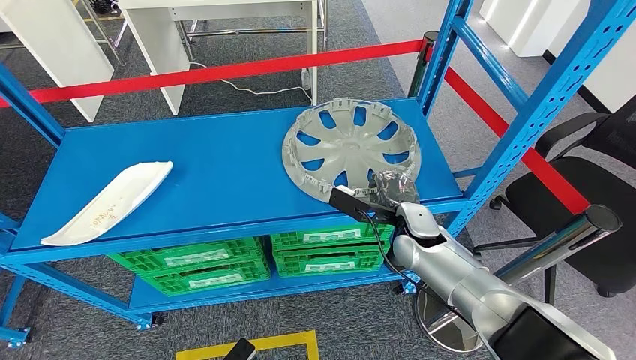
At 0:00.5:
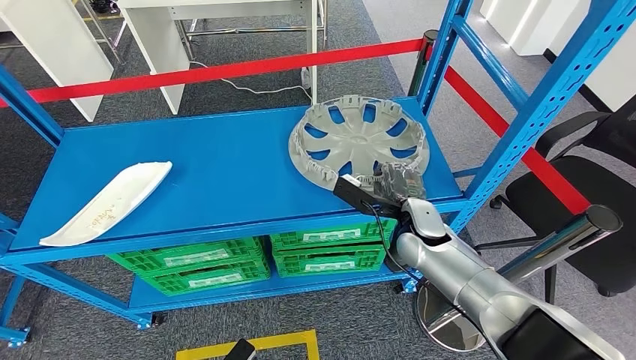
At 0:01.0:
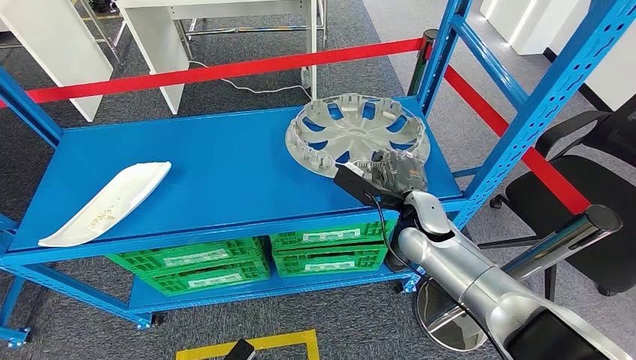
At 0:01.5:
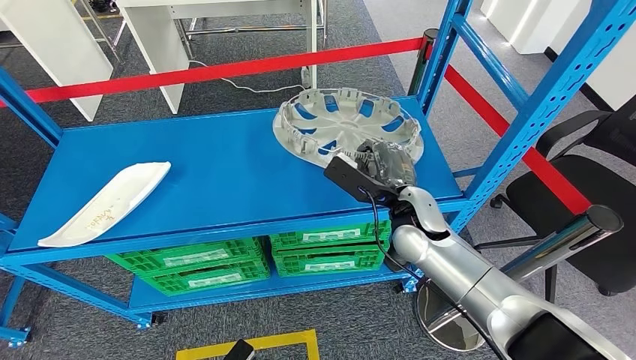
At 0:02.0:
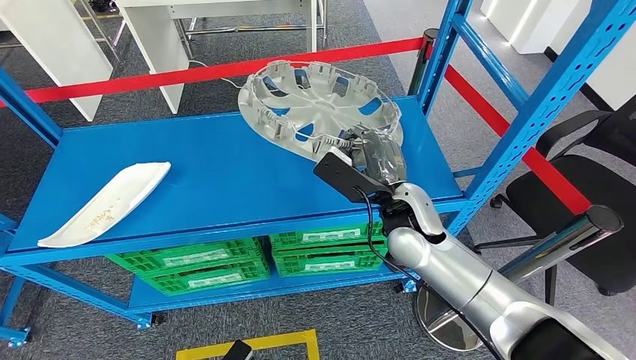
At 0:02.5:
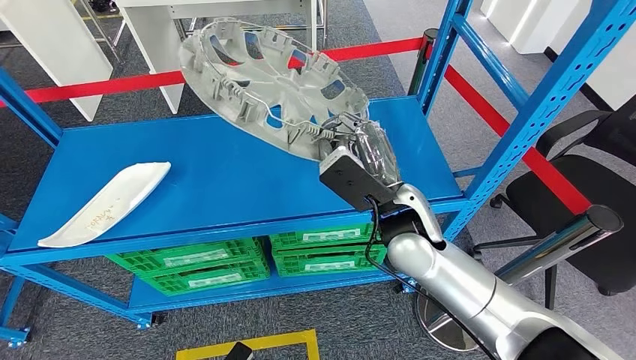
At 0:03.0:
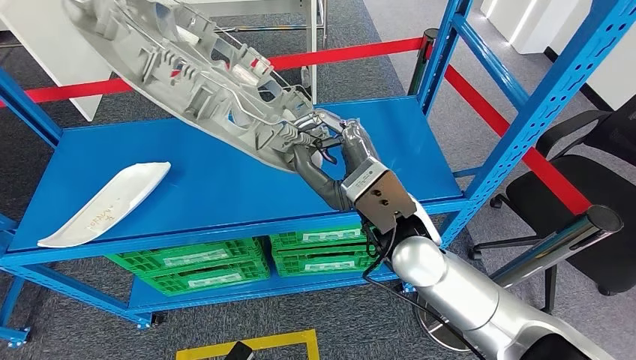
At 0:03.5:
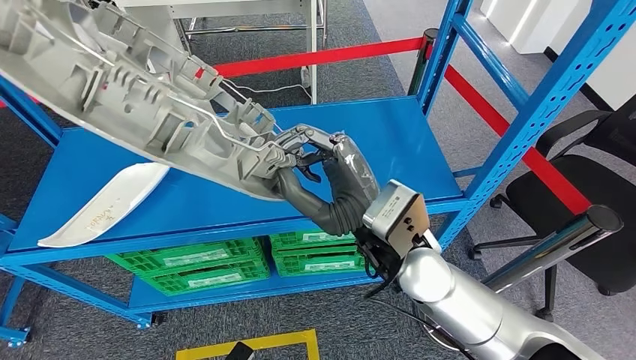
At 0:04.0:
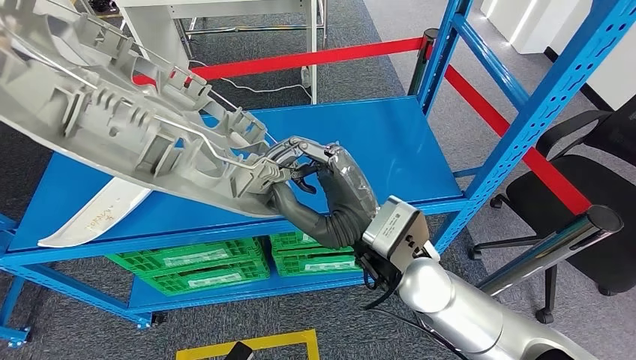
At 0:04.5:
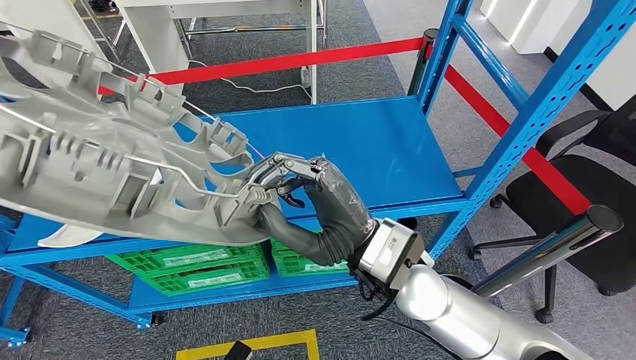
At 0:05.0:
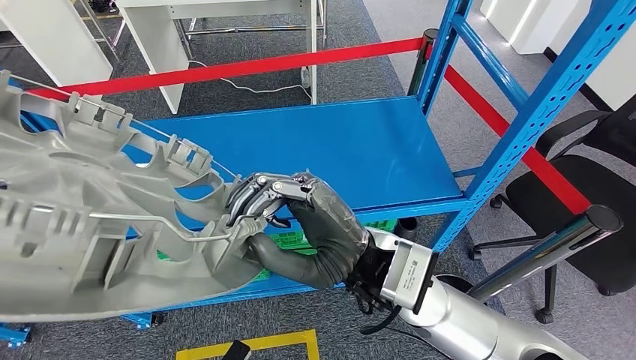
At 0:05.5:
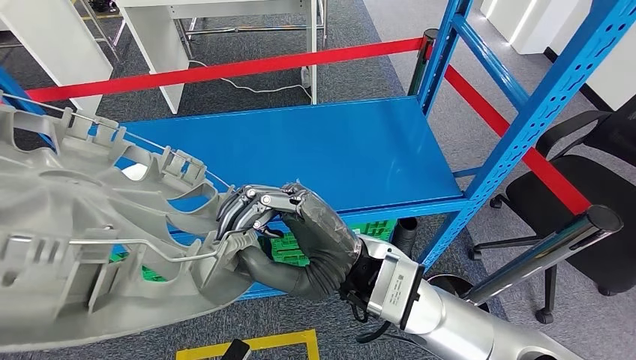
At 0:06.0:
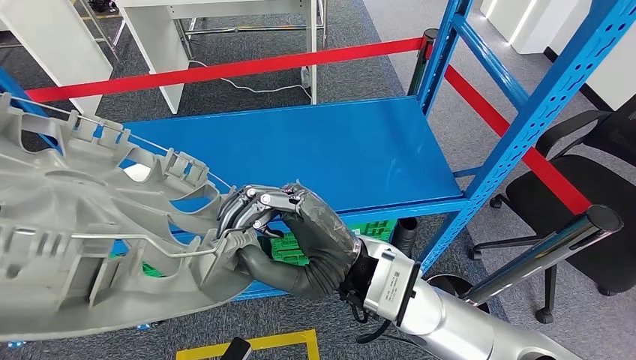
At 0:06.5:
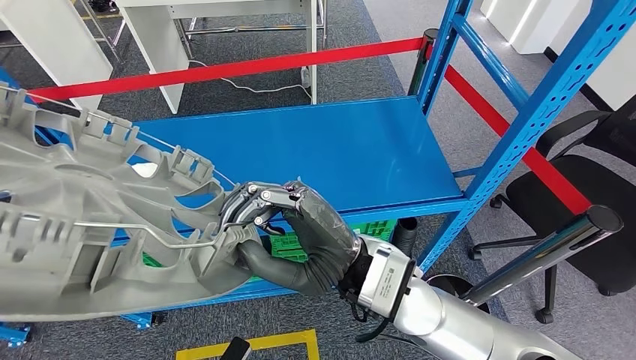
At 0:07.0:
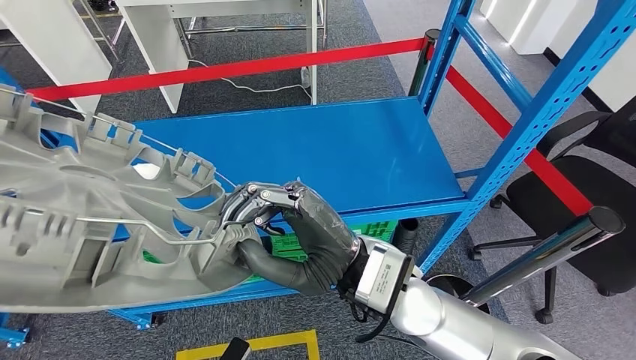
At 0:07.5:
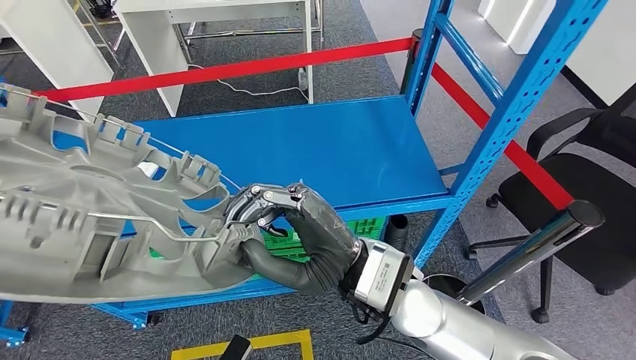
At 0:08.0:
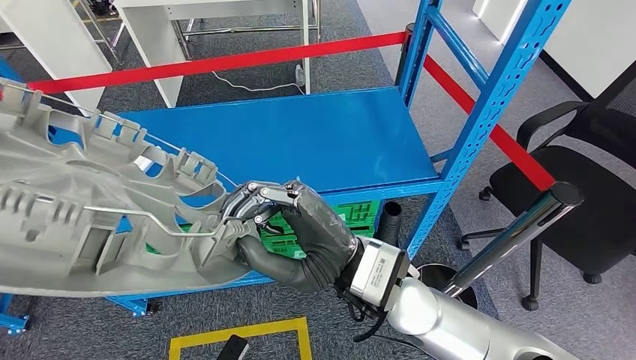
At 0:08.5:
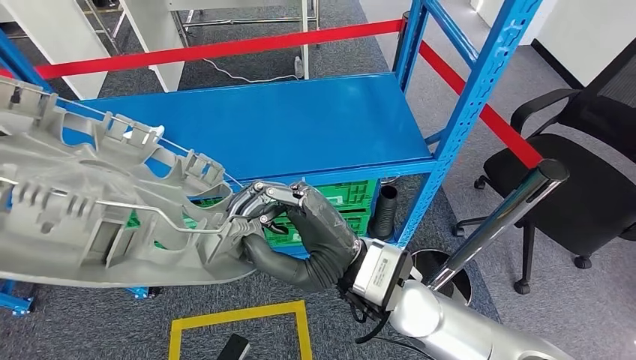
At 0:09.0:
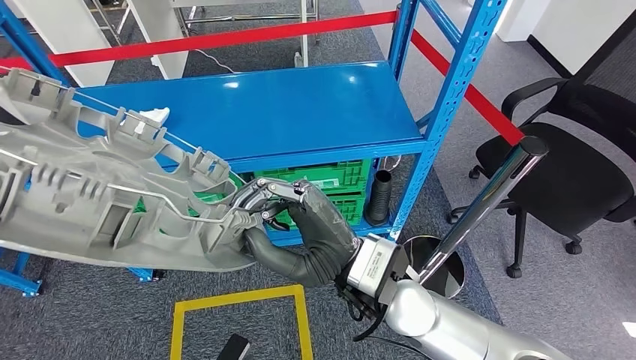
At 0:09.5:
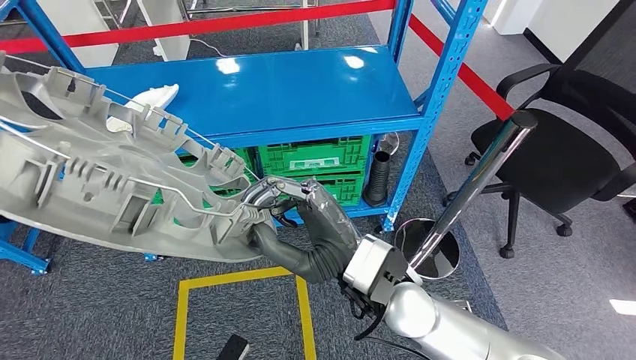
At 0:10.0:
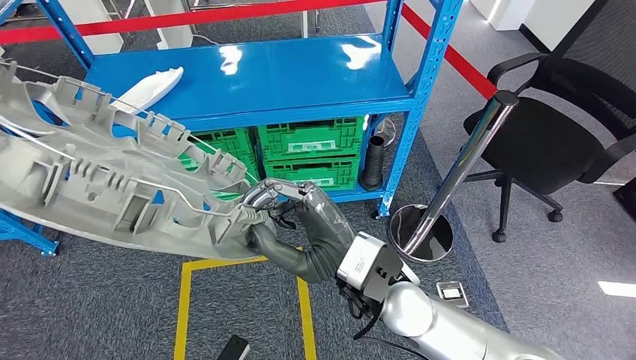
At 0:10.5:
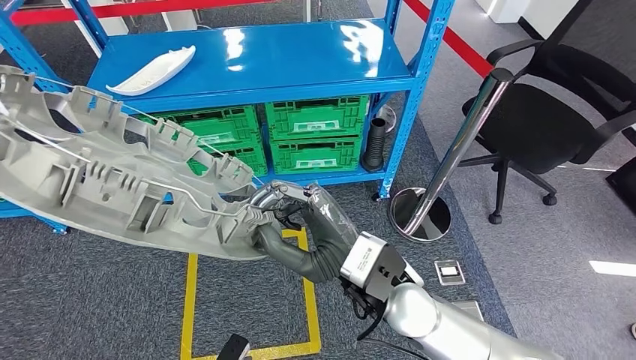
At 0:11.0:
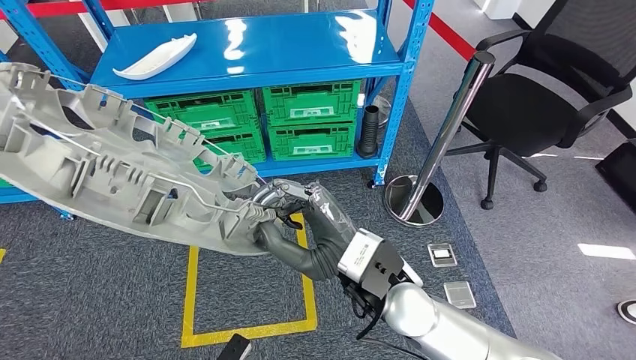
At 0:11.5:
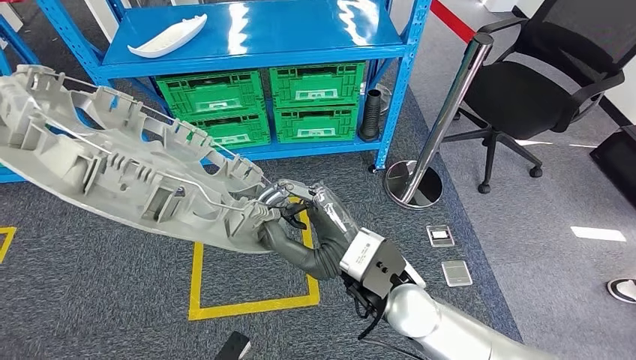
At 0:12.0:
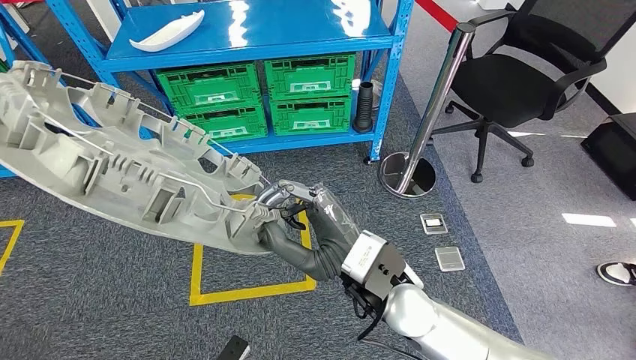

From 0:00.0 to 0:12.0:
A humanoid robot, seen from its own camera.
Step, from 0:00.0 to 0:04.0: Pick up the large material from the shelf.
From 0:00.0 to 0:02.0: The right hand travels upward by approximately 10 cm.

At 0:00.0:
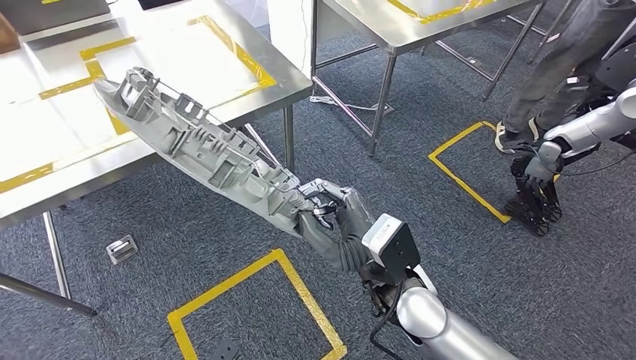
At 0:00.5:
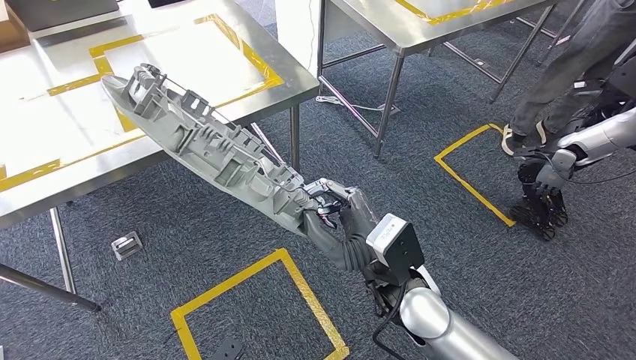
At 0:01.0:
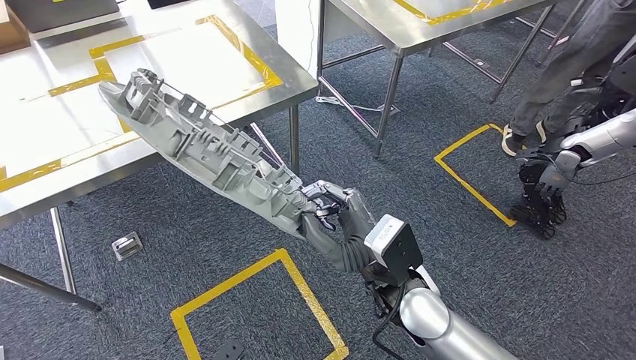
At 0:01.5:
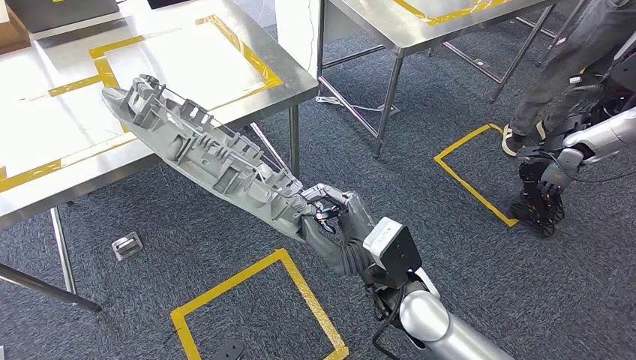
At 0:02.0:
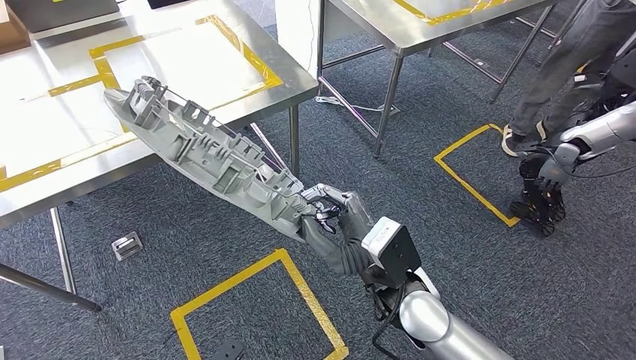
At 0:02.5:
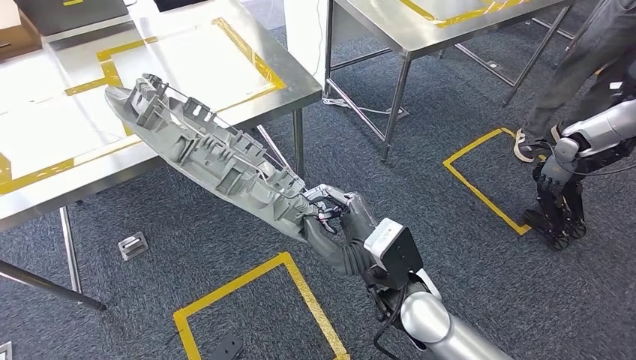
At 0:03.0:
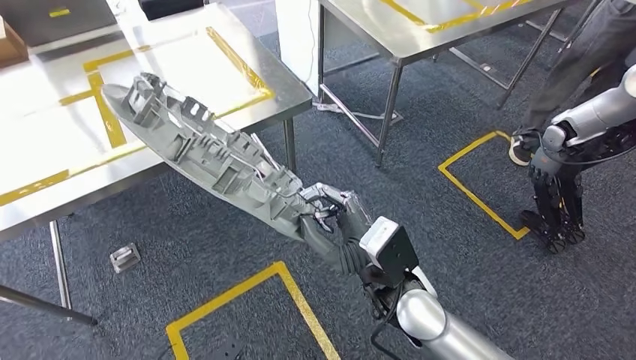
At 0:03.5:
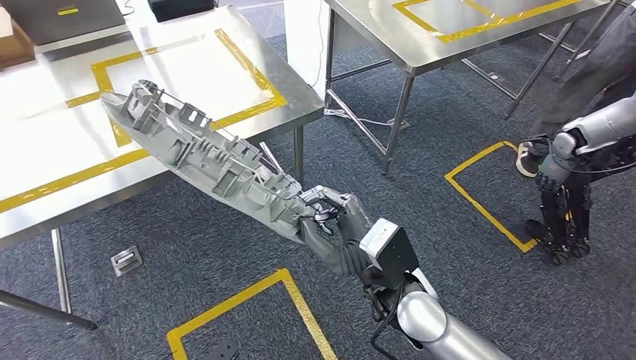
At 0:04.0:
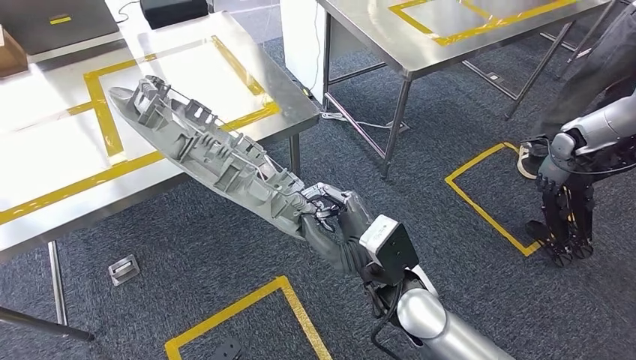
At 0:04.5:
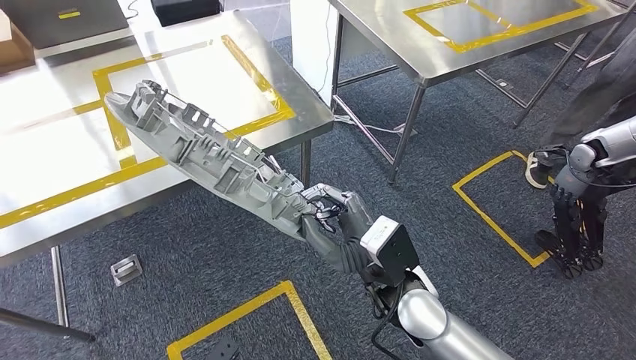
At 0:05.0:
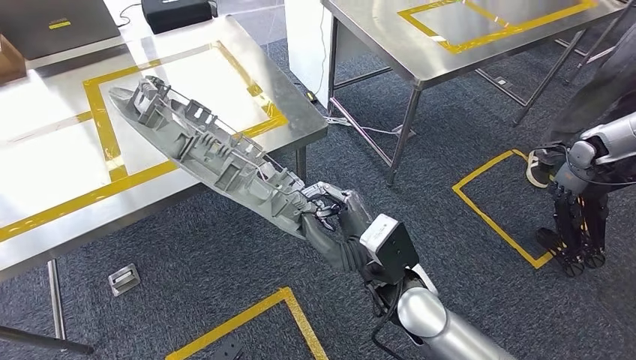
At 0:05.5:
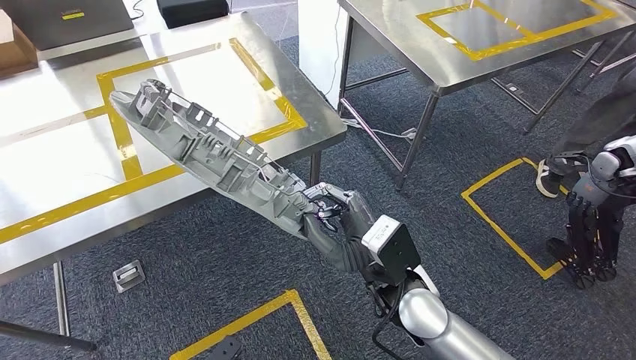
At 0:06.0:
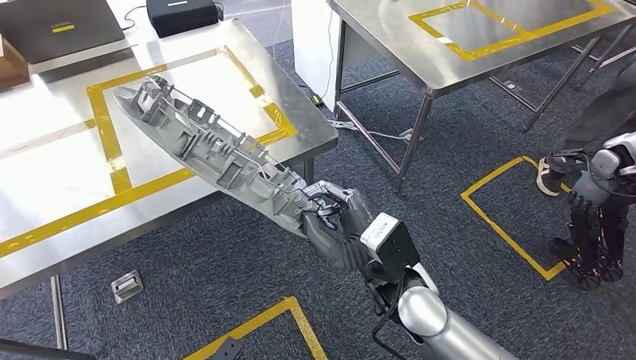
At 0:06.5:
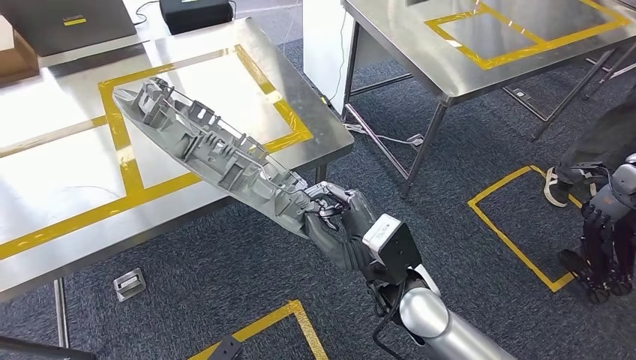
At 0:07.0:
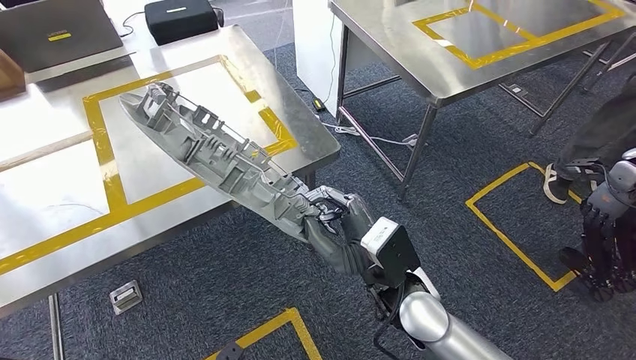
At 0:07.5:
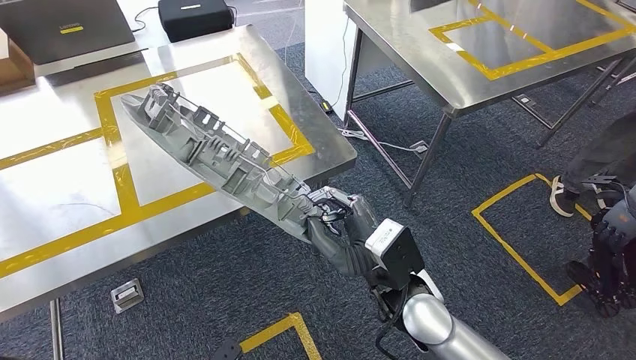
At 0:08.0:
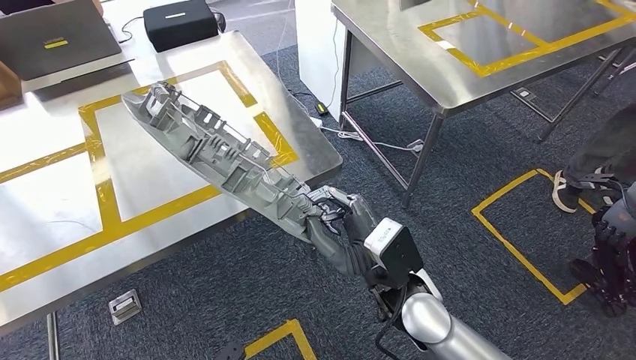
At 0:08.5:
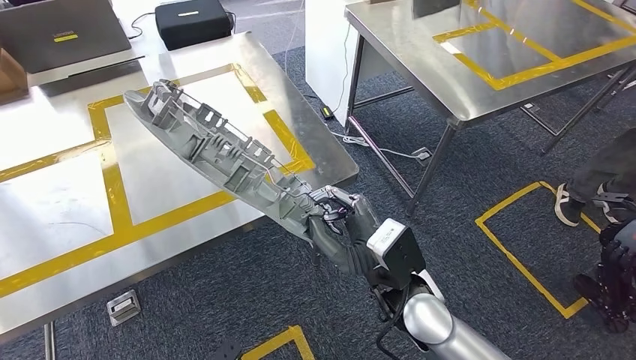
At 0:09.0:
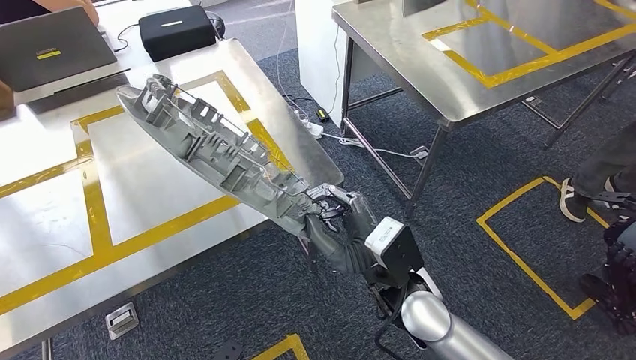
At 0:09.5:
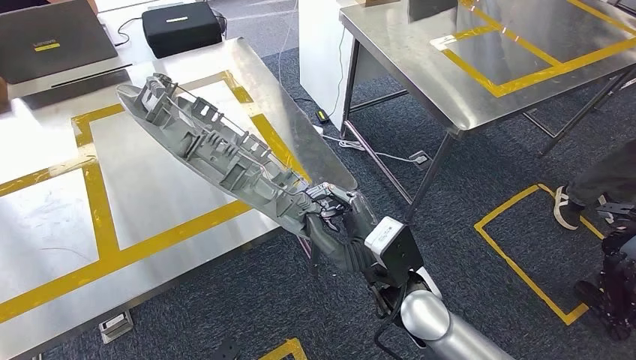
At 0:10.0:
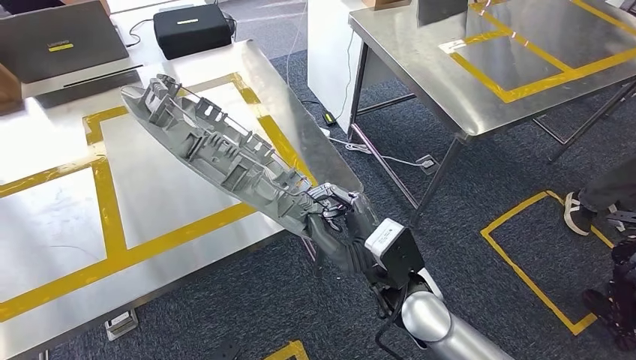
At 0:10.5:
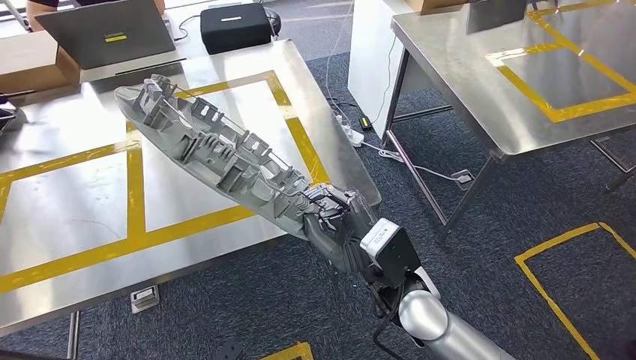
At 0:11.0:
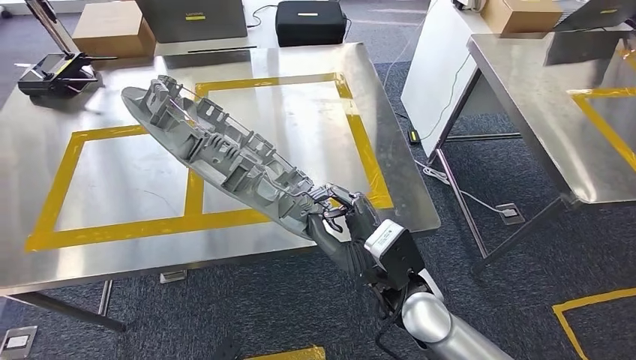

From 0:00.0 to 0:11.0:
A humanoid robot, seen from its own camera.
Step, from 0:00.0 to 0:09.5: Move the large material to the workbench.
From 0:00.0 to 0:02.0: The two hands keep their place.
